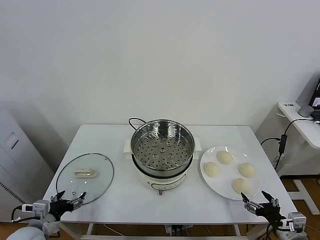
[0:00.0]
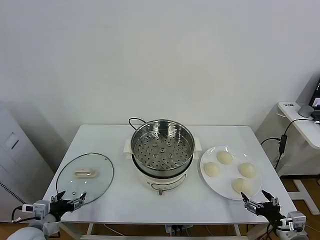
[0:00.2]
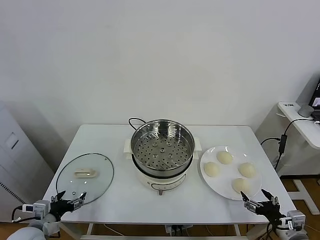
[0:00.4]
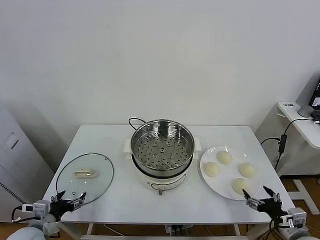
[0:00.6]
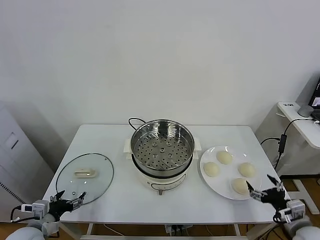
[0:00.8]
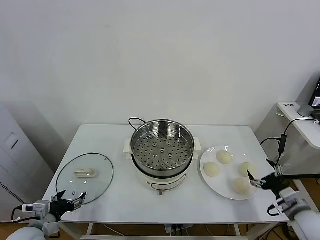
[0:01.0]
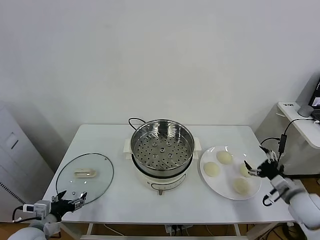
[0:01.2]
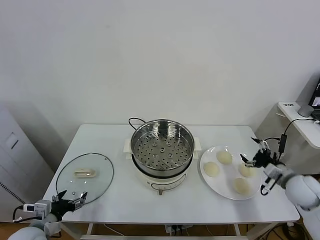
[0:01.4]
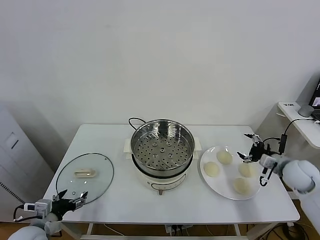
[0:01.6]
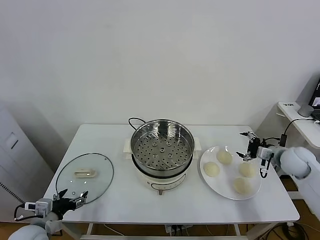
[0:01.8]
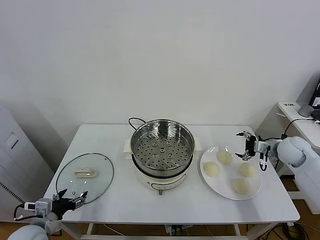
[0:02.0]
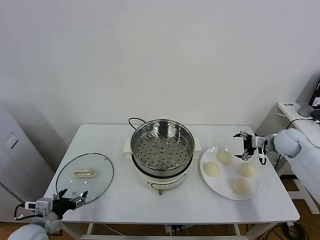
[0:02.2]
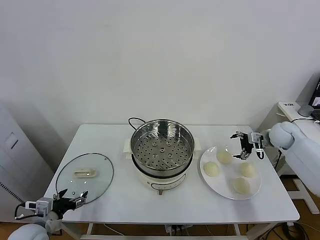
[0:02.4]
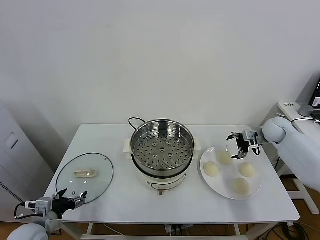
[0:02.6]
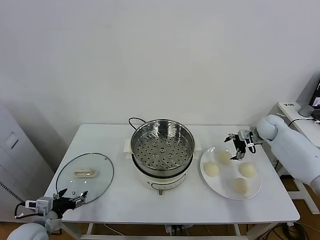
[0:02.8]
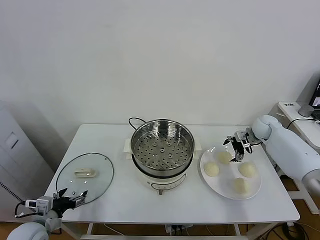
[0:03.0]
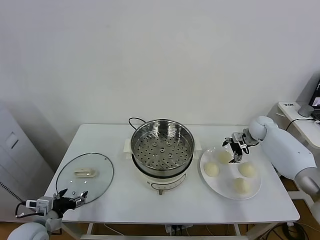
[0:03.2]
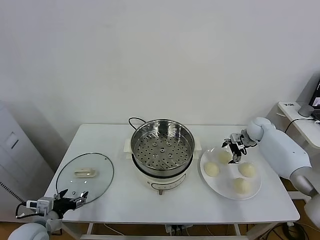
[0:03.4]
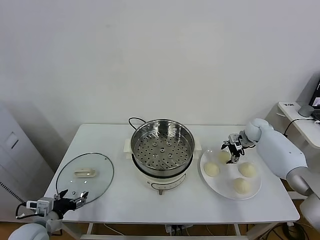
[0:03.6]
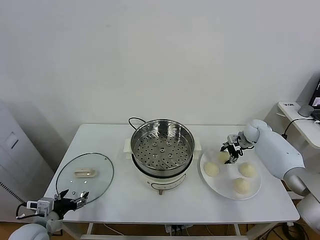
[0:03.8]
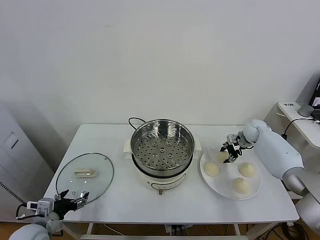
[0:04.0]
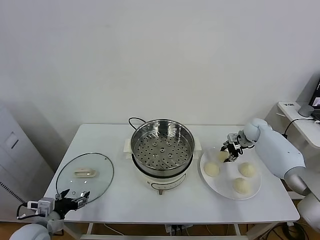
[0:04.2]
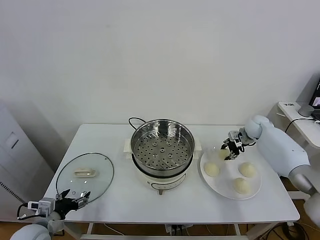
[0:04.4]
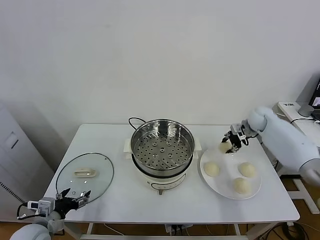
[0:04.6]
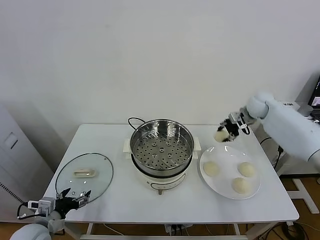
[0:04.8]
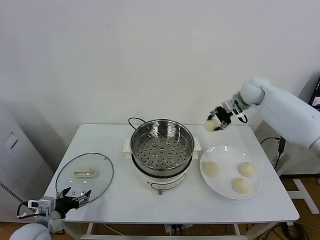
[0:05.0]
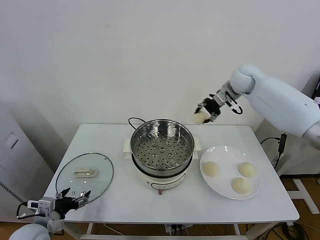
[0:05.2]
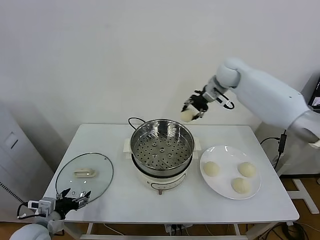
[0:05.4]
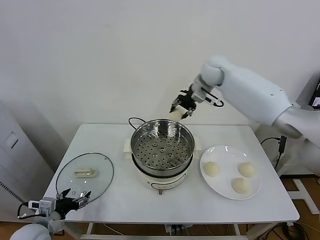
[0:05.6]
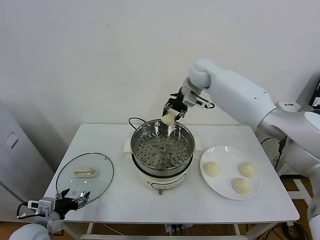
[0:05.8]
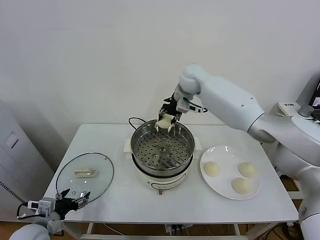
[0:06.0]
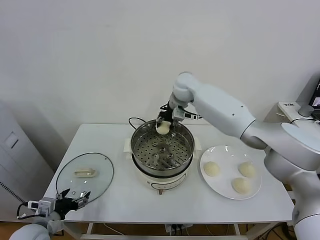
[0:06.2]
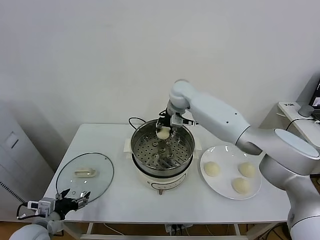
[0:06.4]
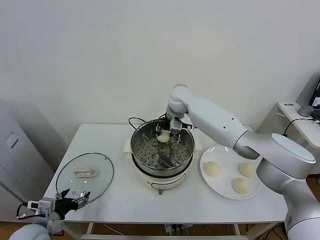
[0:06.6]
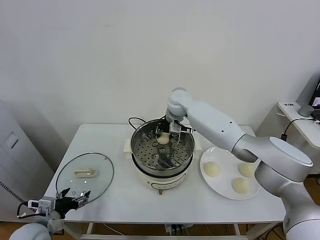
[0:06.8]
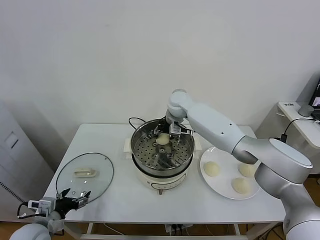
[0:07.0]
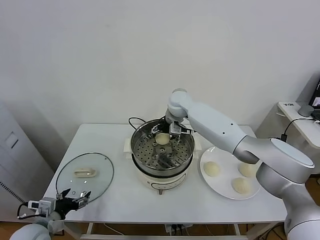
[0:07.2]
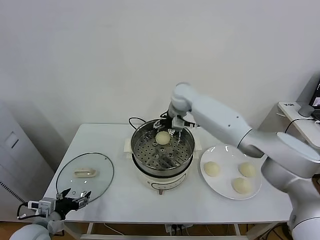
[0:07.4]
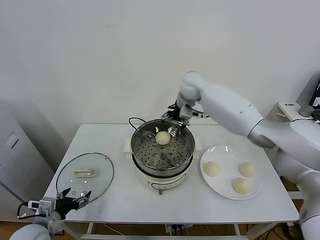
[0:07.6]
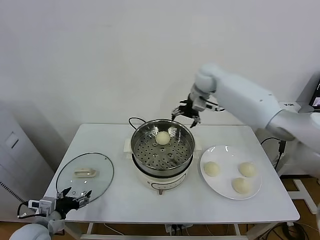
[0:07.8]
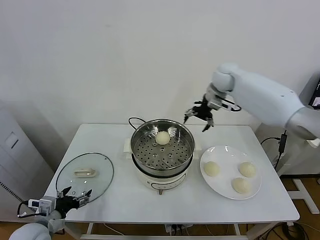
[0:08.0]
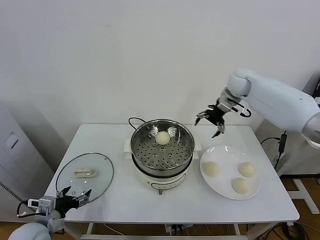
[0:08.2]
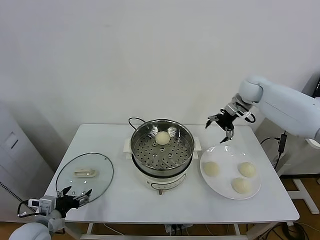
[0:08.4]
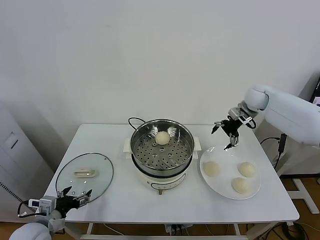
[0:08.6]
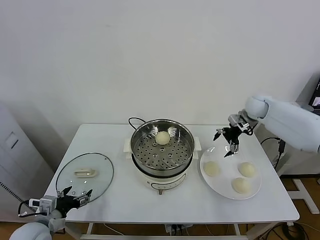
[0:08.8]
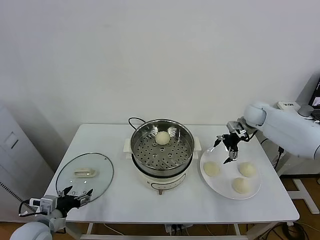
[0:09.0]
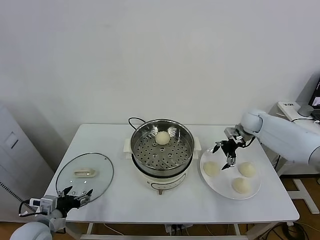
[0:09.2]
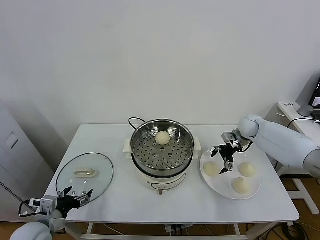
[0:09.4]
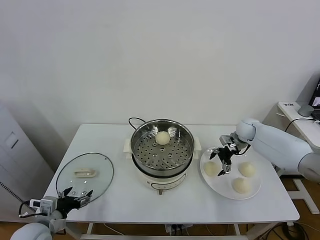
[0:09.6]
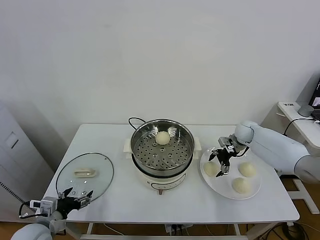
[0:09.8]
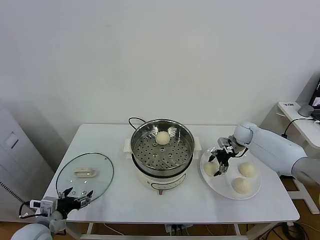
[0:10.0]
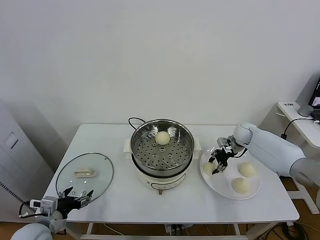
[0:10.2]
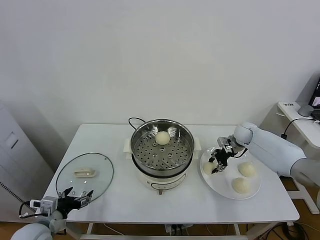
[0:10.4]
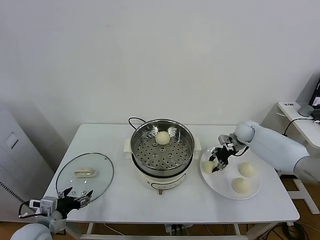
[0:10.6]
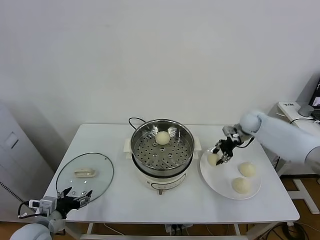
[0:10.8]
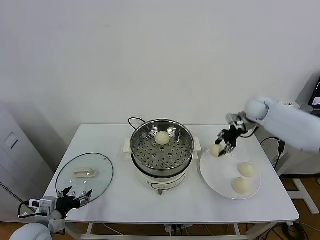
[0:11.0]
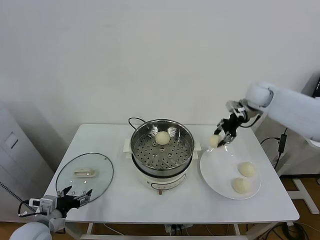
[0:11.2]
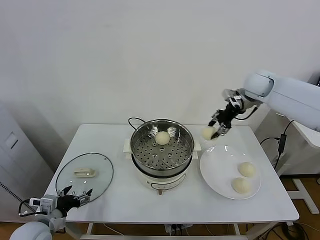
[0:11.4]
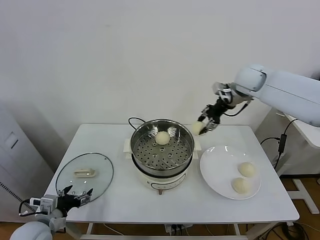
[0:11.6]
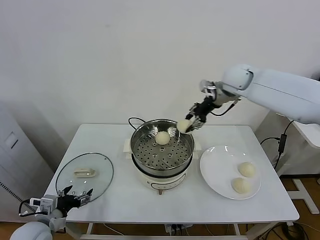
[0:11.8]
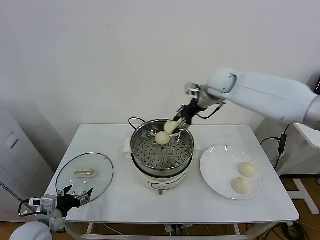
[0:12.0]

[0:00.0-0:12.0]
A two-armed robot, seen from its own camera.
Task of the whole recording: take steamed baozi put them in steamer.
Step, 0:00.0 to 0:03.8: Grasp the baozi in the plate with right gripper.
Step, 0:04.0 to 0:07.0: Place the baozi on the steamer with right gripper.
Step, 0:07.2 to 0:10.2: Grasp the baozi in the plate with right gripper.
0:01.6 to 0:03.0: The right gripper heads forward, covering roughly 20 cm.
0:03.0 to 0:04.4: The right gripper closes up.
0:04.4 to 0:06.0: The right gripper shifts approximately 35 cm to the left and upward.
0:06.0 to 0:07.6: The right gripper reaches about 10 cm downward, then returns, and opens its fingers.
0:07.6 to 0:09.0: The right gripper travels to the right and downward by about 25 cm.
0:09.0 to 0:10.4: The right gripper shifts roughly 10 cm downward, and closes its fingers.
0:10.4 to 0:12.0: The right gripper is displaced upward and to the left by roughly 30 cm.

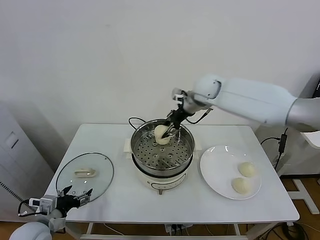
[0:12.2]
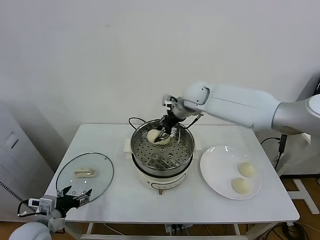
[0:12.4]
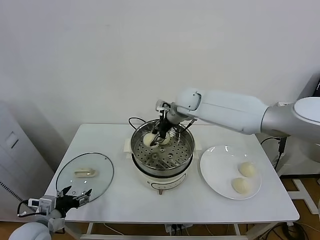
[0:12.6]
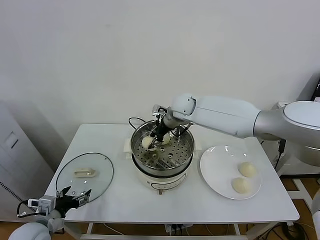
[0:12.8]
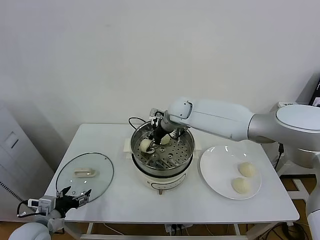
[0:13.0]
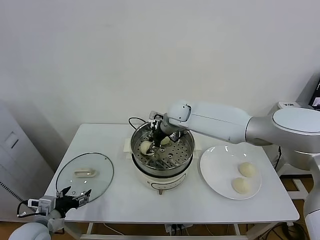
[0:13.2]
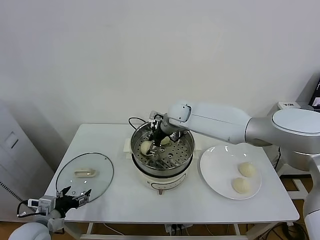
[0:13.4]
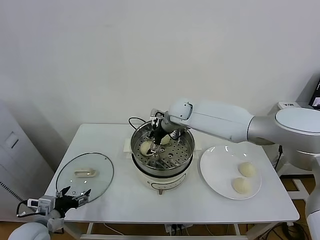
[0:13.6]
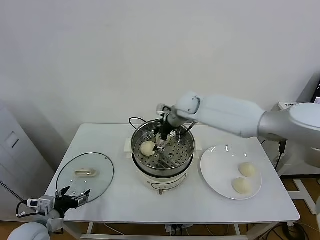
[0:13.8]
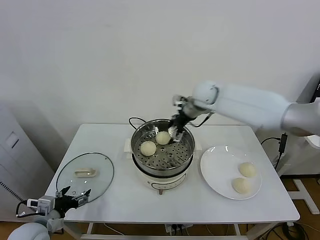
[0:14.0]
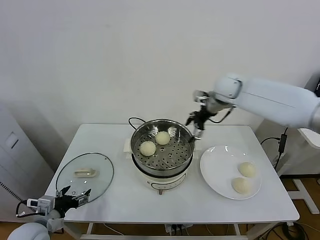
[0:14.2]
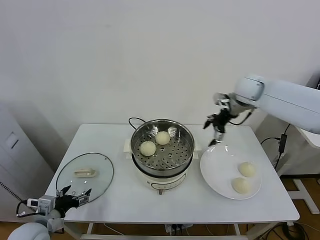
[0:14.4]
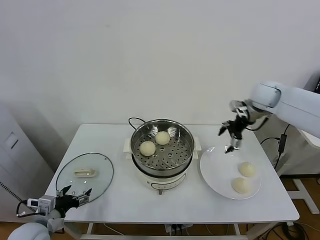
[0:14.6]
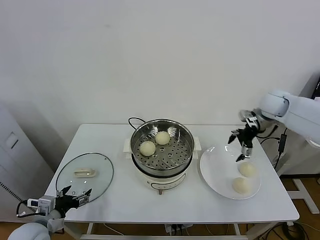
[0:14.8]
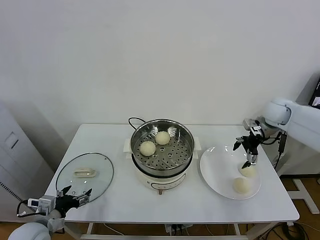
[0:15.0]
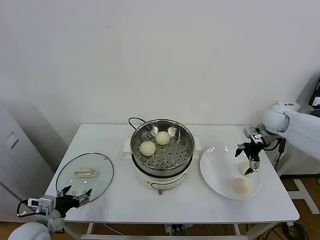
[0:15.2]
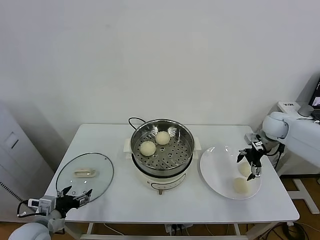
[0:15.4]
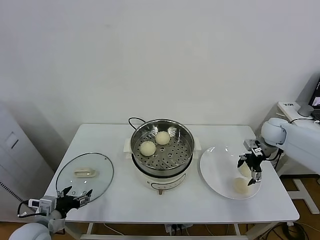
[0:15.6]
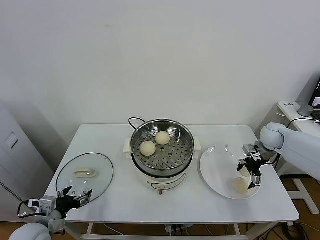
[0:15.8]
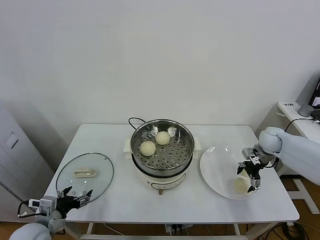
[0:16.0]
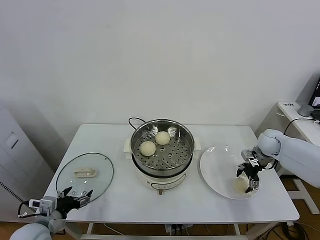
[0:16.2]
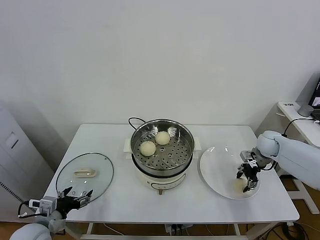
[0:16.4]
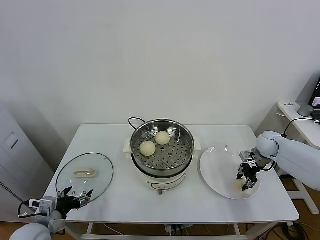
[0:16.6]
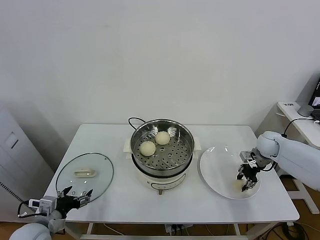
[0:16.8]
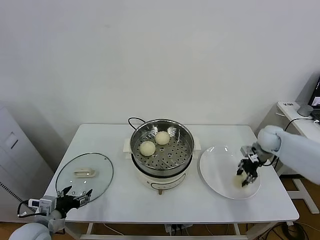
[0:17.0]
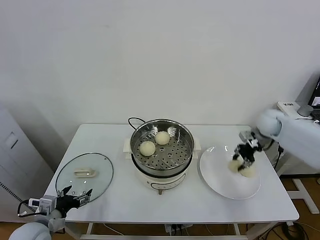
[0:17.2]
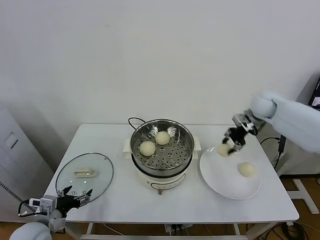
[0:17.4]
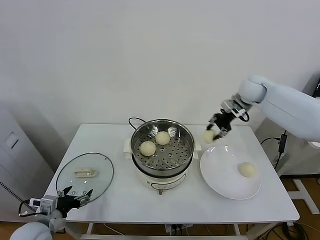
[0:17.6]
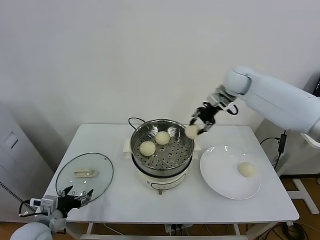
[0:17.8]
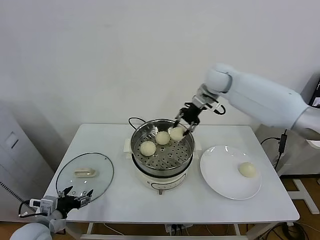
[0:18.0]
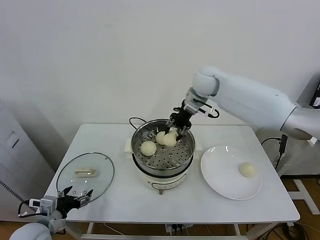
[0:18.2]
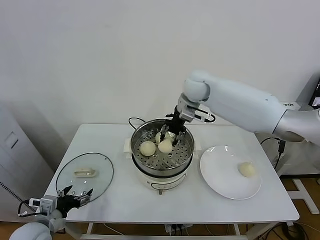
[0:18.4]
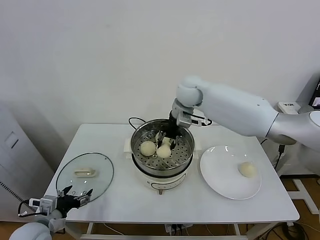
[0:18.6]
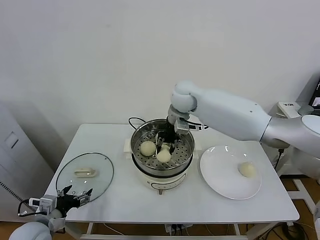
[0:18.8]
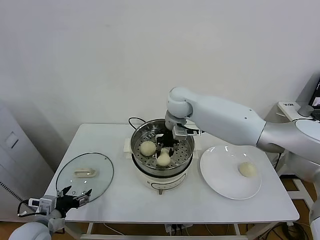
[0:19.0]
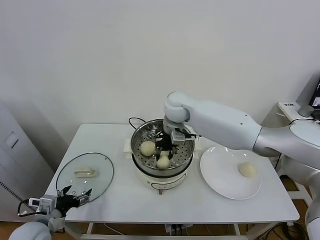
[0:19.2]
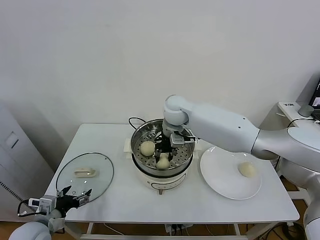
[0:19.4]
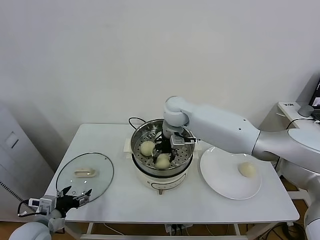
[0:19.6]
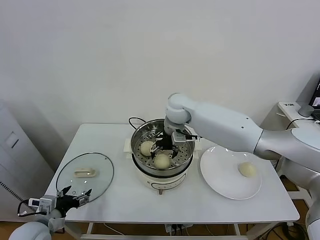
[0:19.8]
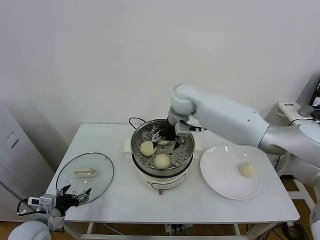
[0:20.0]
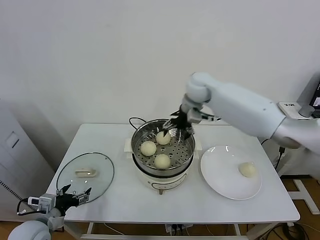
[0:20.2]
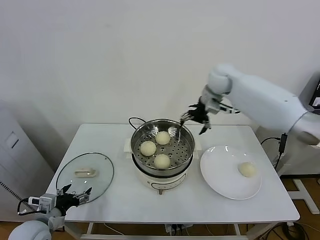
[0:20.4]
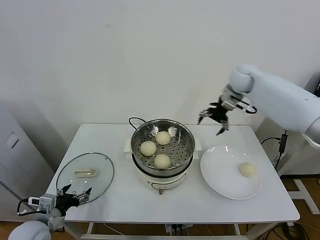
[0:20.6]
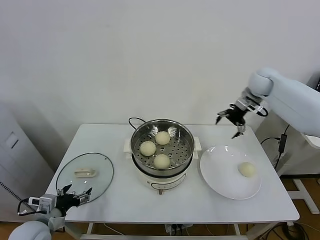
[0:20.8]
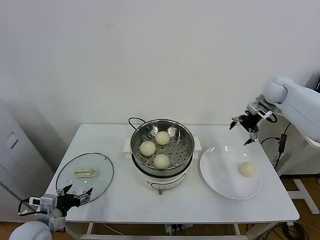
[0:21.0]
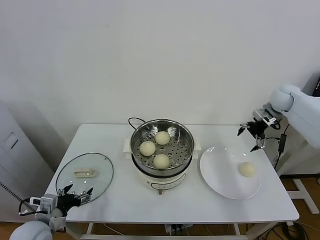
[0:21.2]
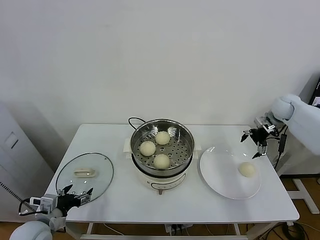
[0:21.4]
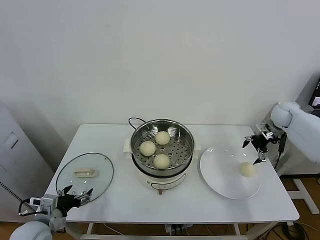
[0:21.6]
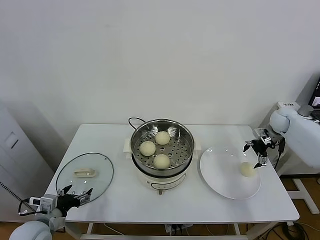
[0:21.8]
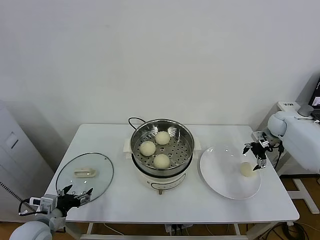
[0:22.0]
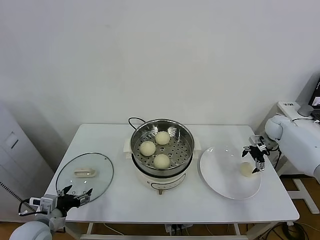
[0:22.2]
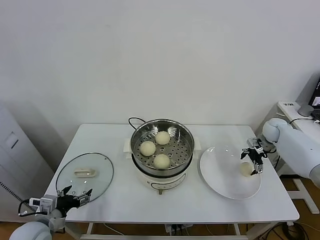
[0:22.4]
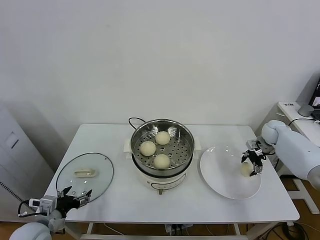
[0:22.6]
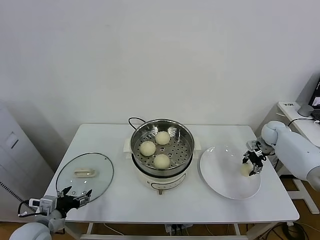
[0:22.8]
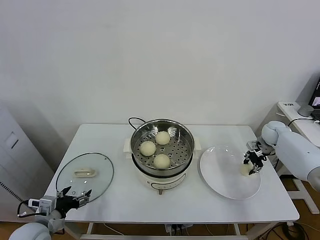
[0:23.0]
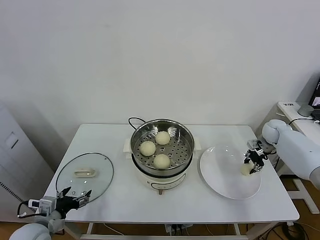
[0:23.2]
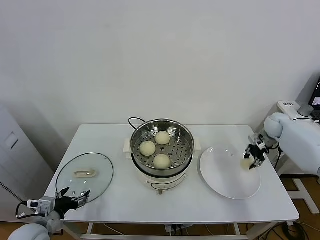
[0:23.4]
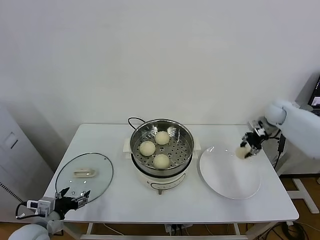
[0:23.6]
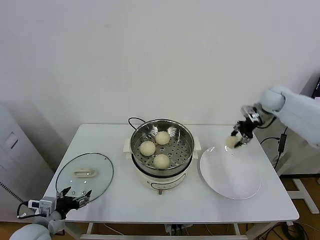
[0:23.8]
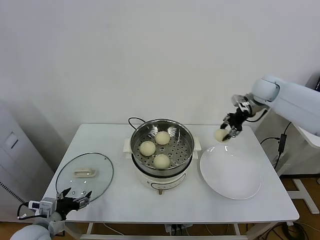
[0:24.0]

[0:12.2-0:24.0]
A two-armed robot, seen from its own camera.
Task of the whole recording: take steamed baozi put them in steamer.
Step, 0:13.8 to 0:16.4: Grasp the baozi in the plate with right gripper.
Step, 0:16.6 to 0:19.8: Place the baozi on the steamer with right gripper.
Step, 0:20.0 to 0:22.8: Grasp the baozi in the plate with right gripper.
0:12.2 to 0:13.6: The right gripper is displaced downward and to the left by approximately 10 cm, and opens its fingers.
0:13.6 to 0:15.2: The right gripper is displaced to the right by approximately 35 cm.
0:15.2 to 0:16.6: The right gripper travels downward by some 10 cm, and closes.
0:16.6 to 0:18.2: The right gripper travels to the left and upward by about 35 cm.
0:18.2 to 0:19.6: The right gripper is displaced to the left and downward by about 10 cm, and opens.
0:19.6 to 0:21.0: The right gripper heads to the right, covering some 35 cm, and opens its fingers.
0:21.0 to 0:22.6: The right gripper moves downward, roughly 20 cm.
0:22.6 to 0:24.0: The right gripper heads upward and to the left, covering about 25 cm, and closes.
